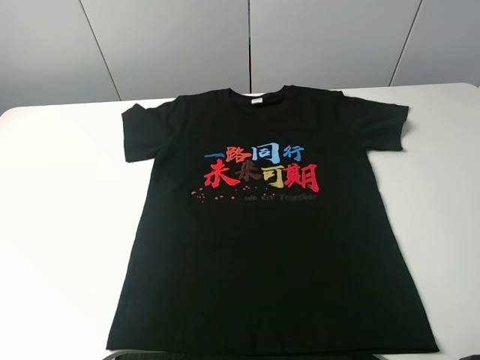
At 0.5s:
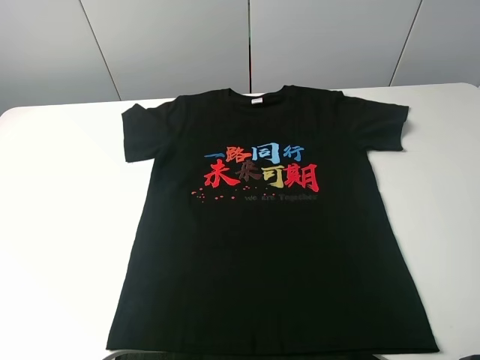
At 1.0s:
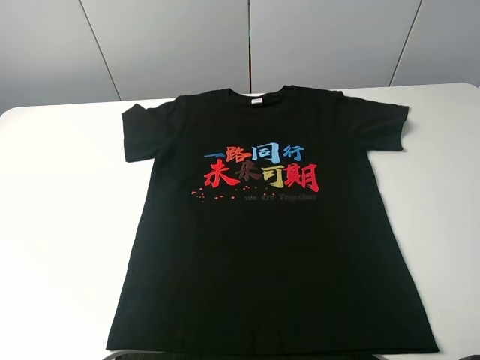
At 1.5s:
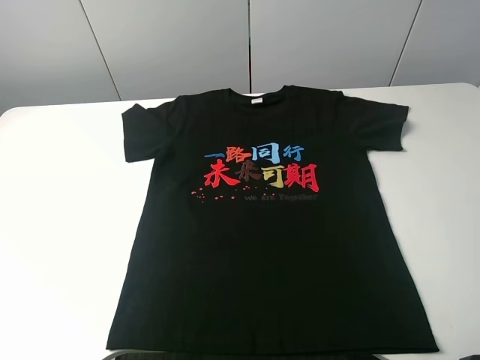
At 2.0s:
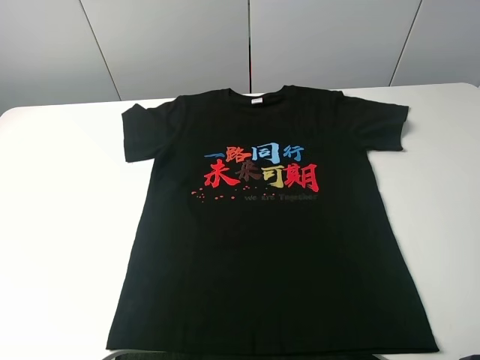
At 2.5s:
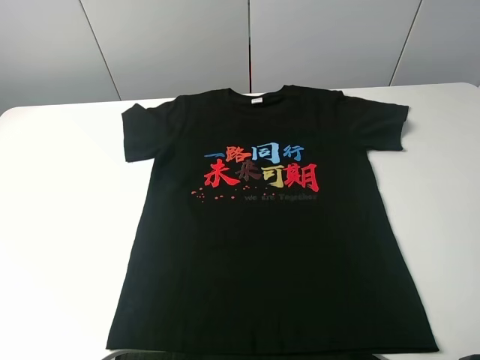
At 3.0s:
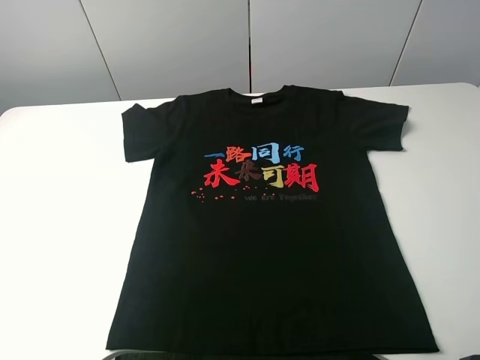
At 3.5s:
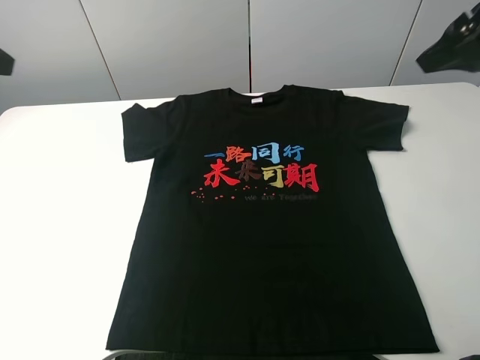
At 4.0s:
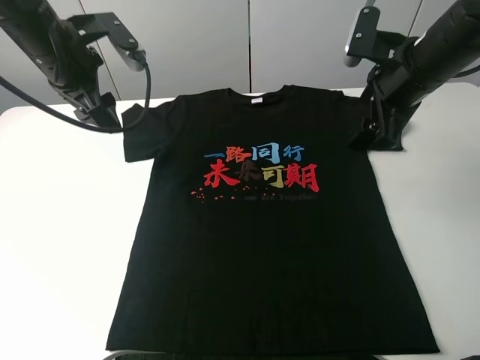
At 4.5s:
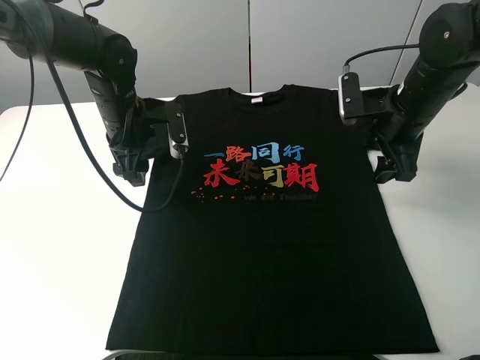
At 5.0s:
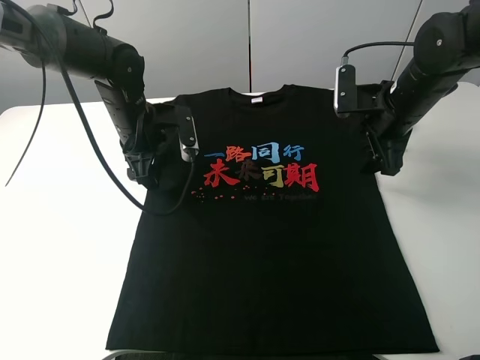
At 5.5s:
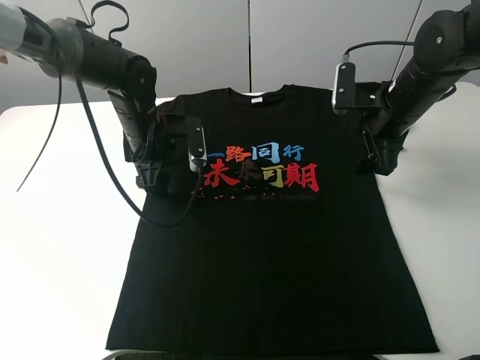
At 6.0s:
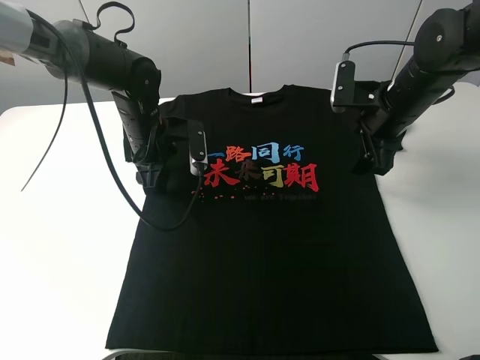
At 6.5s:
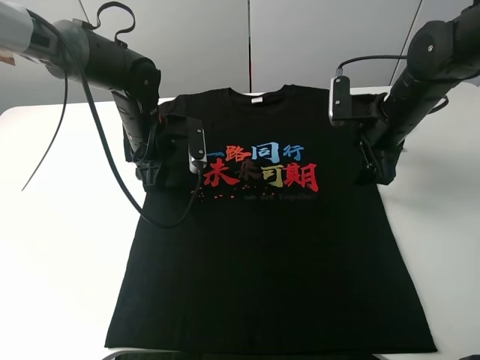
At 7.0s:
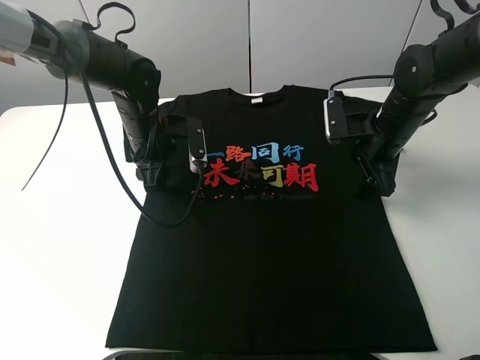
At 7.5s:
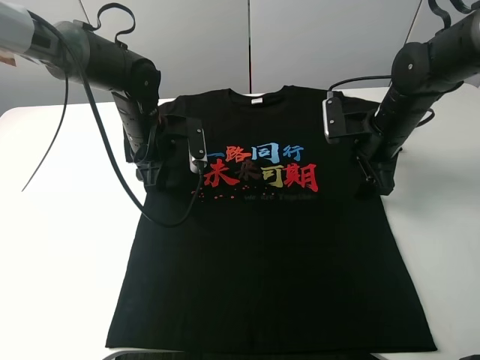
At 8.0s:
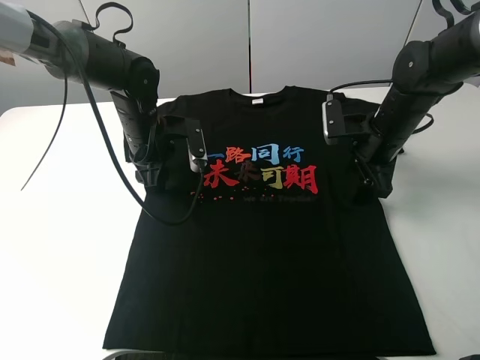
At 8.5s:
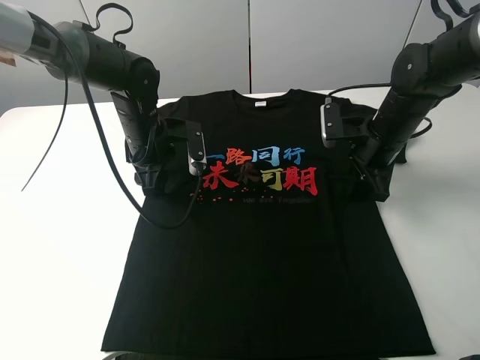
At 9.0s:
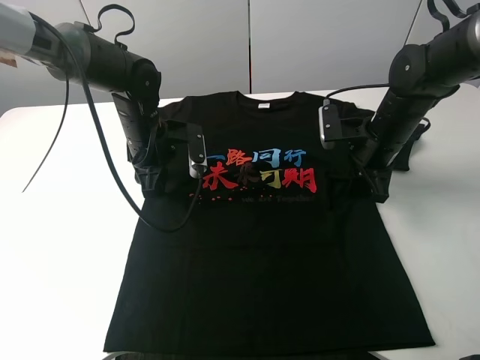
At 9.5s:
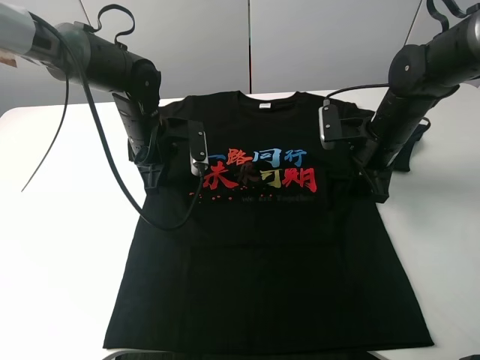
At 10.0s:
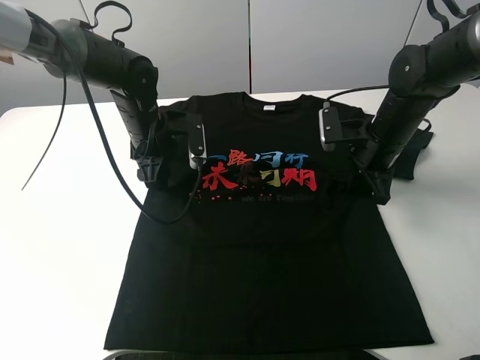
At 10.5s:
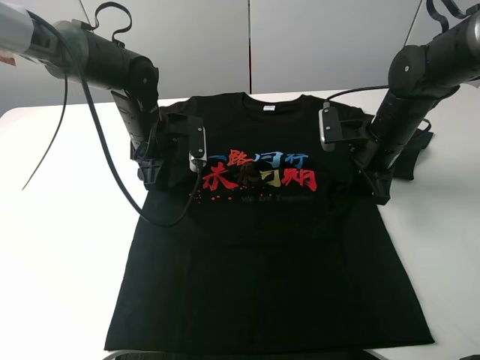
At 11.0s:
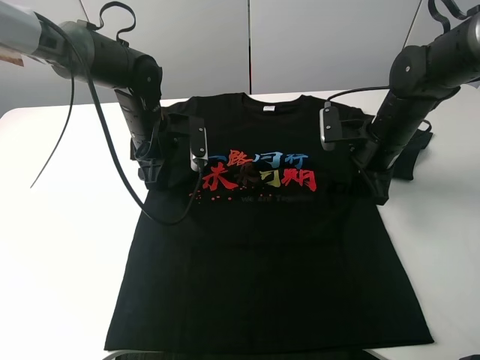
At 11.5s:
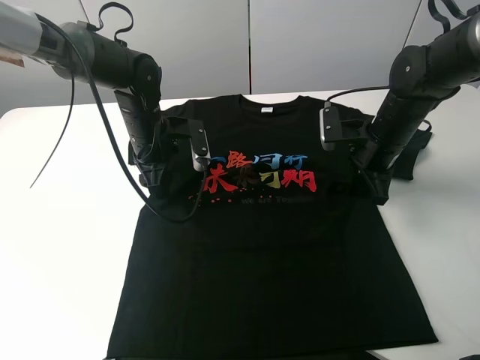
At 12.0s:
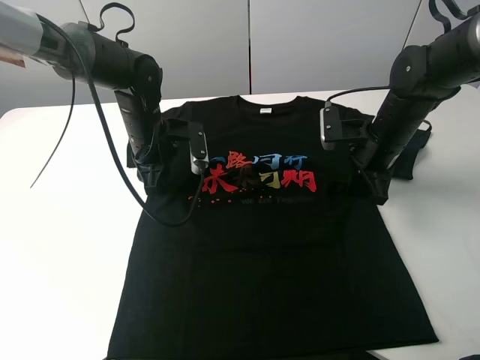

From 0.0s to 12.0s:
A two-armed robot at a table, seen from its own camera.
Task of the whole recording: fold the clothes on the table.
Step, from 0.0s to 8.5s: Lift the black T-shirt with the left gripper.
From 0.0s to 2.0s: Neither gripper changes place.
From 2.0s to 4.0s: The right gripper shifts about 30 cm forward. The left gripper shifts about 40 cm forward and to the right.
From 4.0s to 6.0s: The right gripper shifts some 5 cm downward, while the left gripper goes roughly 15 cm downward and to the right, and closes.
From 6.0s to 8.0s: The right gripper moves downward, about 5 cm.
From 8.0s to 10.0s: The right gripper closes its fingers; the left gripper closes, then reopens.
From 10.0s to 12.0s: The left gripper closes its fingers.

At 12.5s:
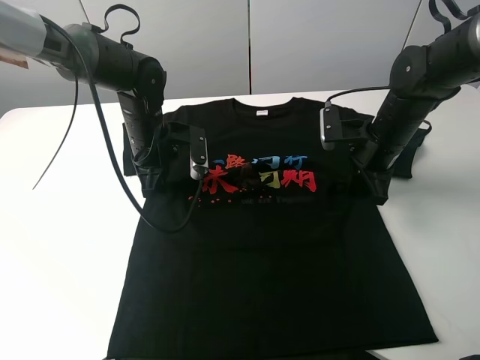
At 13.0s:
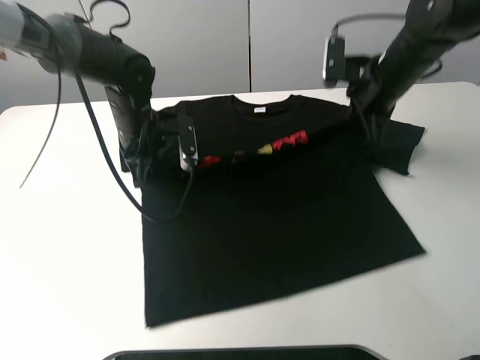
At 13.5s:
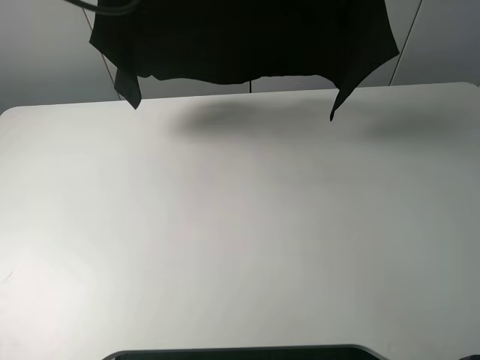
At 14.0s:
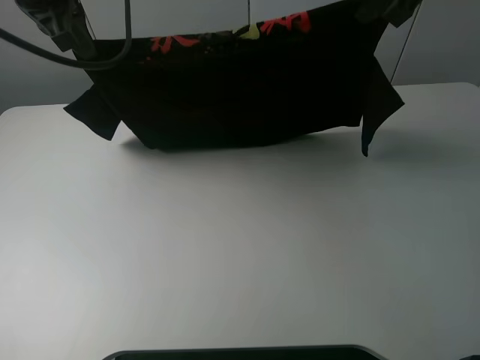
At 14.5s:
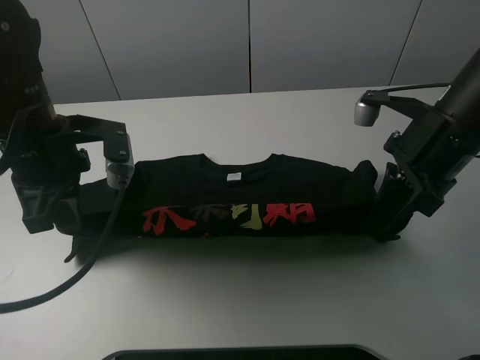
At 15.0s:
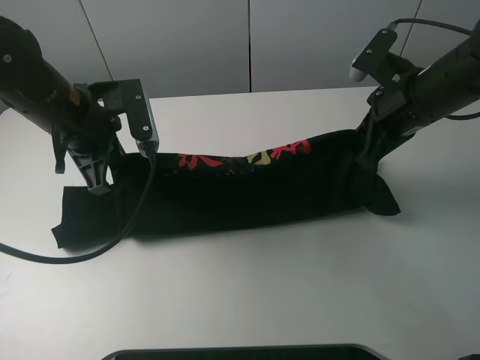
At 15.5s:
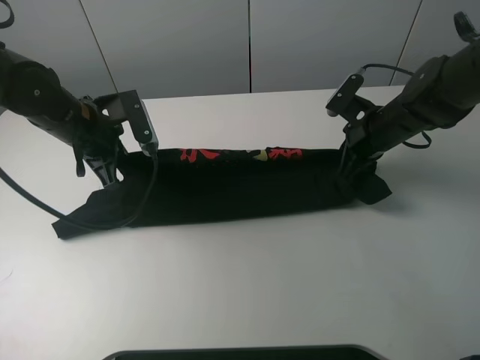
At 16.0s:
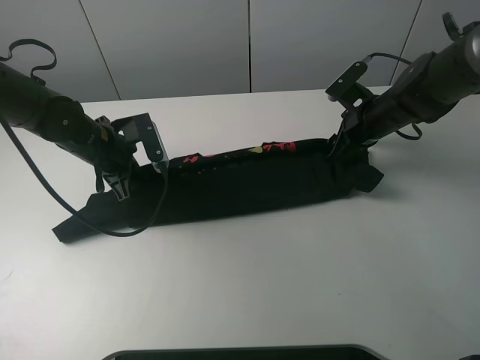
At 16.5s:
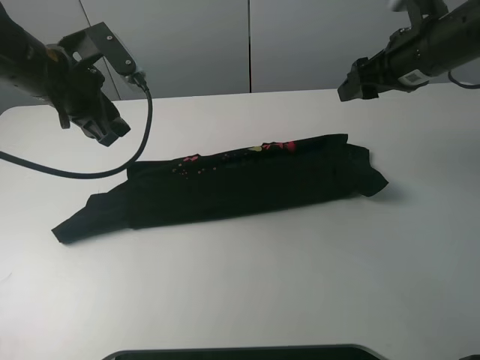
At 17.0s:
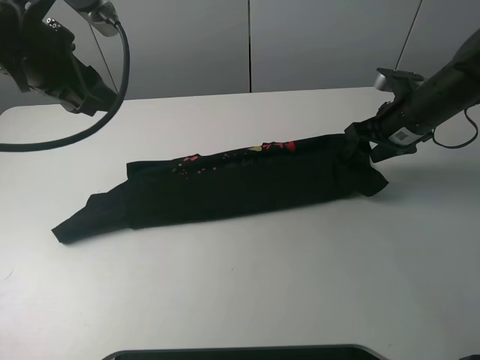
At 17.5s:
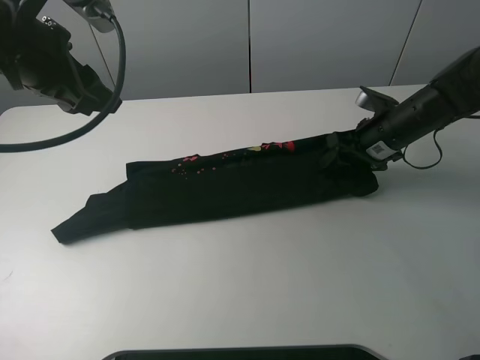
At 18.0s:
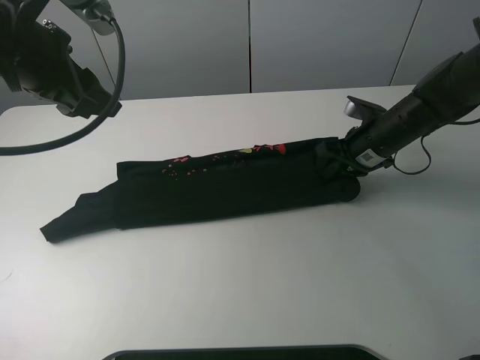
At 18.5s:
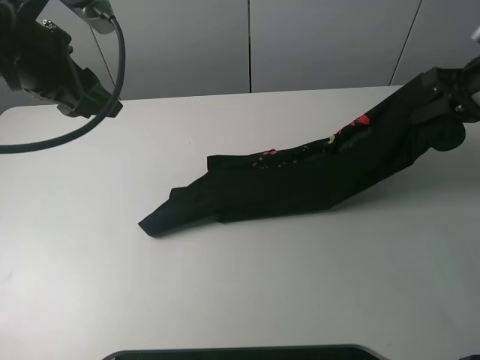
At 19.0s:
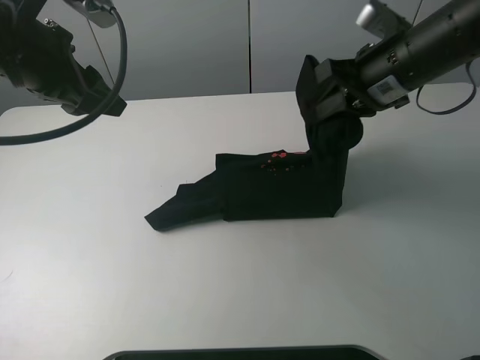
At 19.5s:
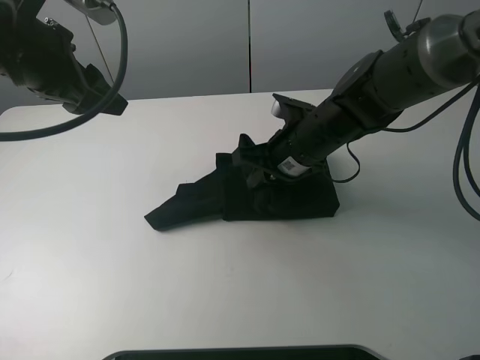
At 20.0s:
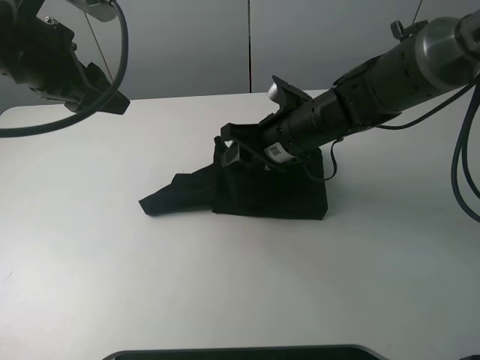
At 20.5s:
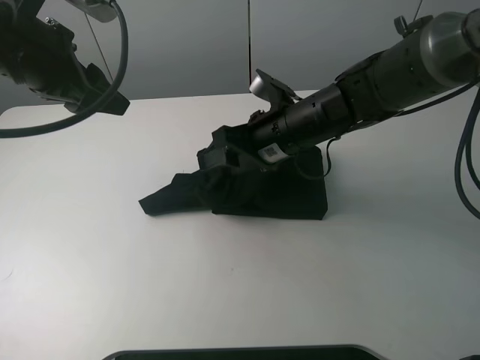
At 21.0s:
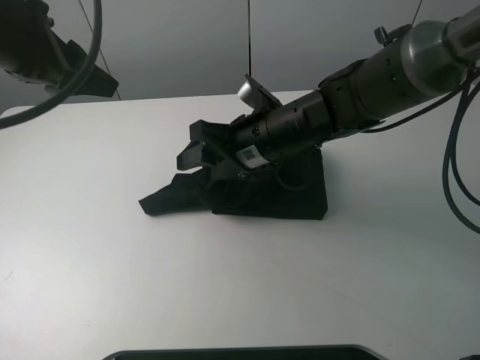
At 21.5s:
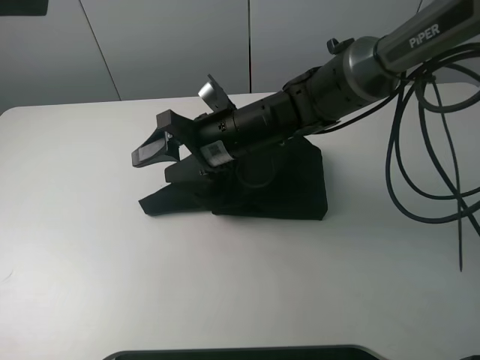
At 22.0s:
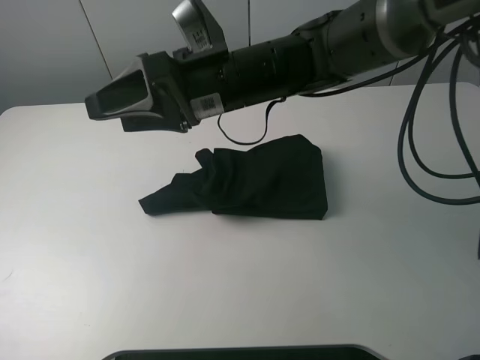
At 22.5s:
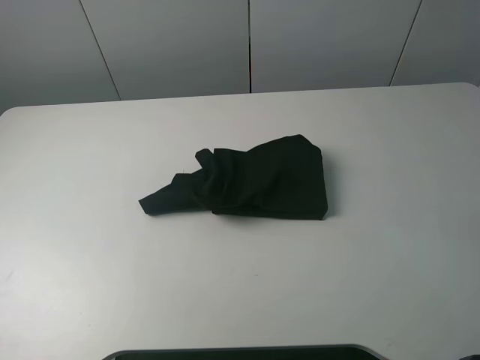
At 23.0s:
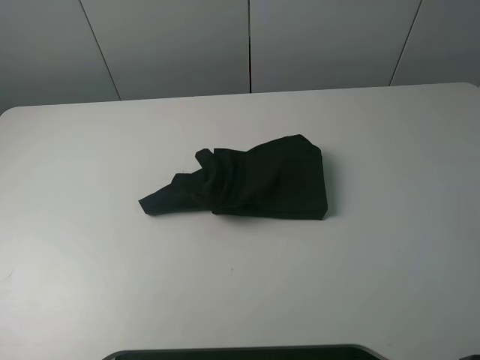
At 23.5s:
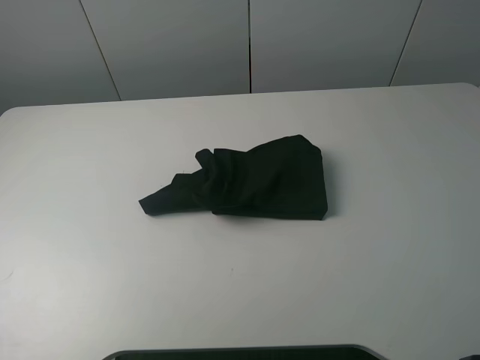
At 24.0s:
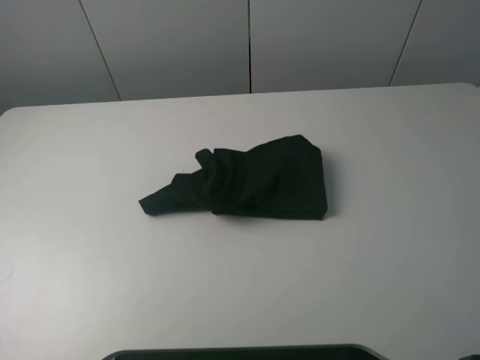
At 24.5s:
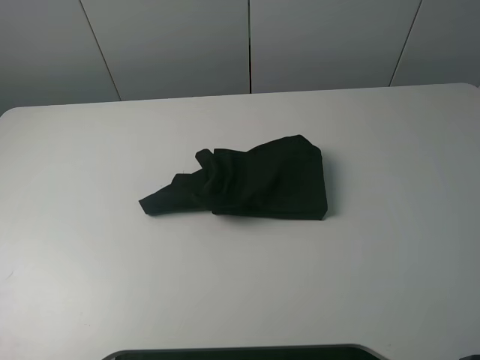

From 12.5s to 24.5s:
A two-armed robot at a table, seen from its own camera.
Task of the whole recording: fold the clothes on the table.
Step, from 12.5s to 16.0s: Fold the black T-shirt downward with the left gripper.
Step, from 16.5s to 17.5s: Grasp the black T-shirt with the right gripper.
Step, from 18.0s to 20.0s: Fold the black T-shirt from right to left with right gripper.
From 12.5s to 14.5s: The left gripper heads backward, upward and to the left, covering about 20 cm, while the right gripper travels upward and backward by about 15 cm.
From 14.5s to 16.5s: The two grippers go roughly 10 cm forward. The right gripper opens; the left gripper moves about 10 cm downward and comes back, and opens its fingers.
From 16.5s to 18.5s: The left gripper travels upward by roughly 5 cm. The right gripper travels to the right by some 10 cm, goes downward and returns, about 15 cm each way, and closes its fingers.
From 18.5s to 20.5s: The right gripper heads to the left, covering roughly 25 cm, and opens its fingers.
From 20.5s to 22.5s: The right gripper goes some 25 cm upward. The left gripper moves backward, upward and to the left, about 30 cm.

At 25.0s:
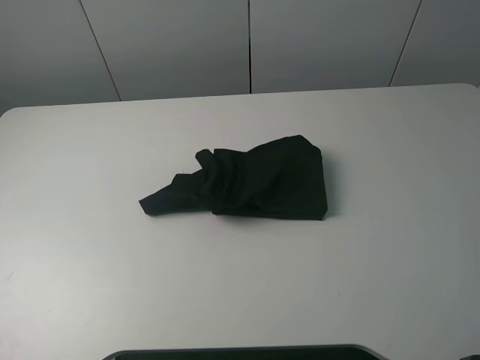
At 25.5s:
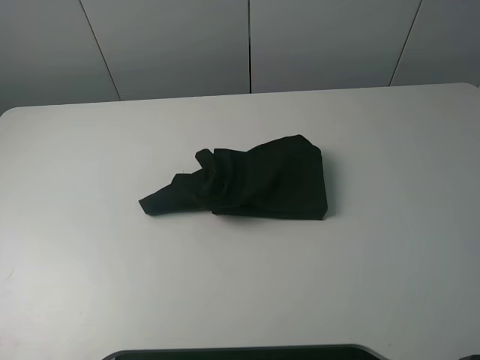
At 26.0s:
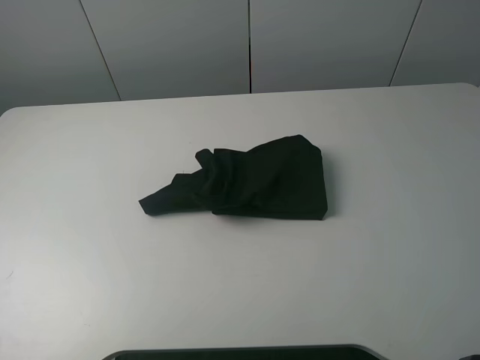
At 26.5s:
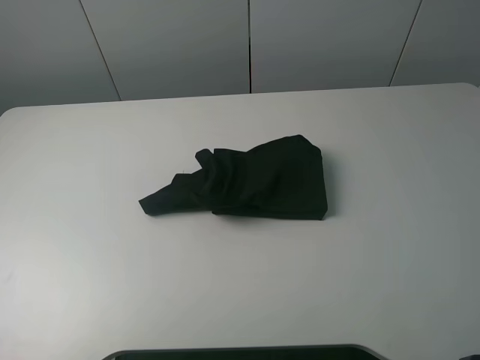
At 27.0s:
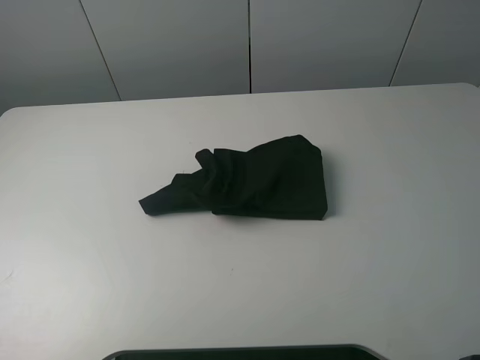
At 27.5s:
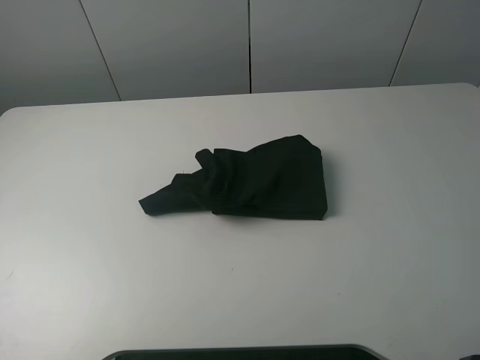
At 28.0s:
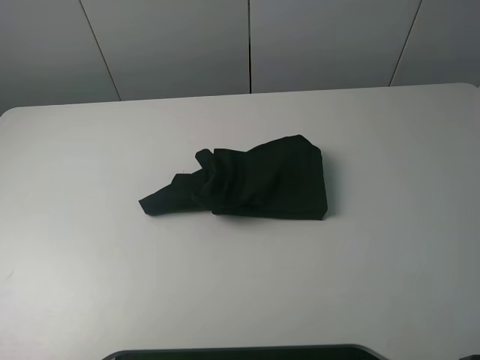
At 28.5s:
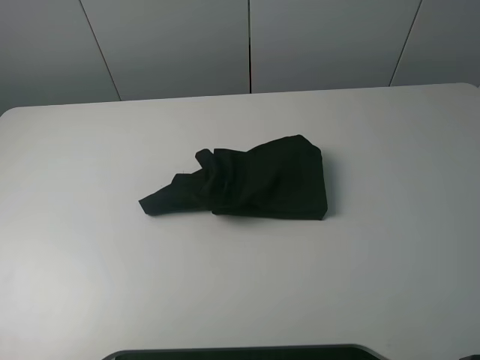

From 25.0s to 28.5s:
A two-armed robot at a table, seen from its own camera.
Task of the whole recording: fold the clothes on the table.
From 27.0s to 28.5s: The two grippers keep their place.
